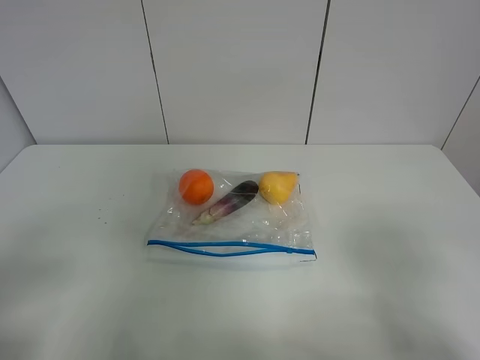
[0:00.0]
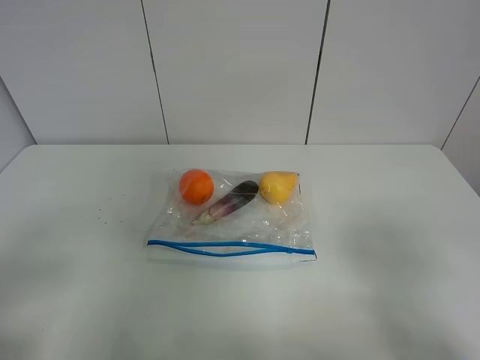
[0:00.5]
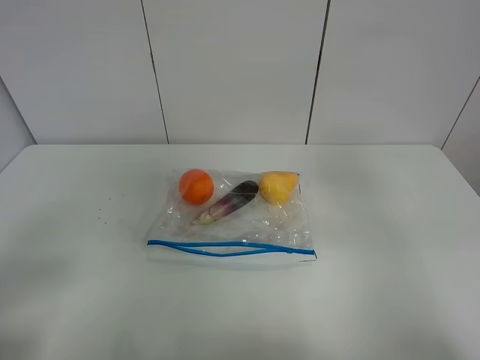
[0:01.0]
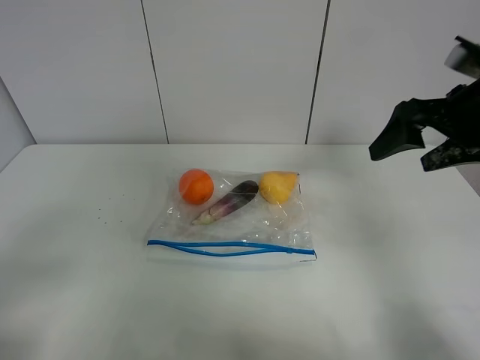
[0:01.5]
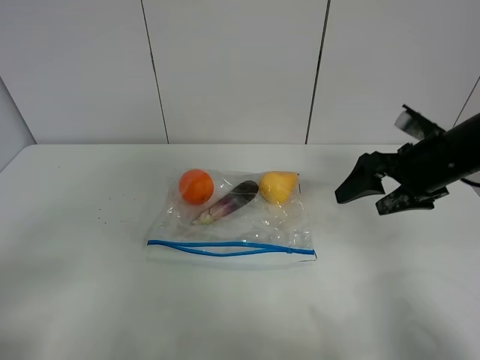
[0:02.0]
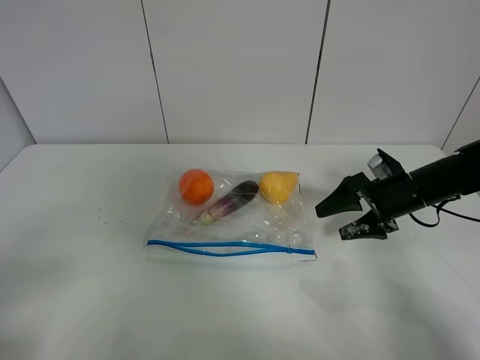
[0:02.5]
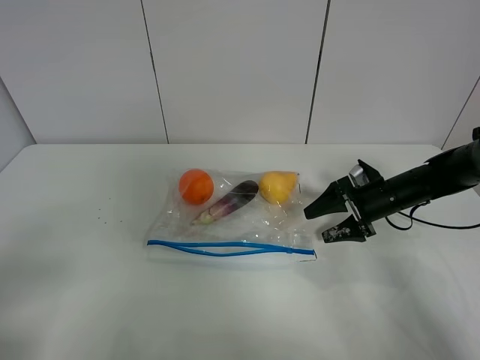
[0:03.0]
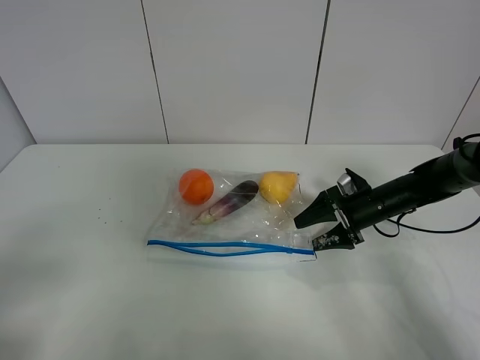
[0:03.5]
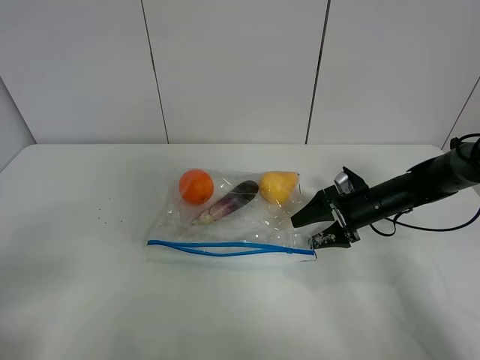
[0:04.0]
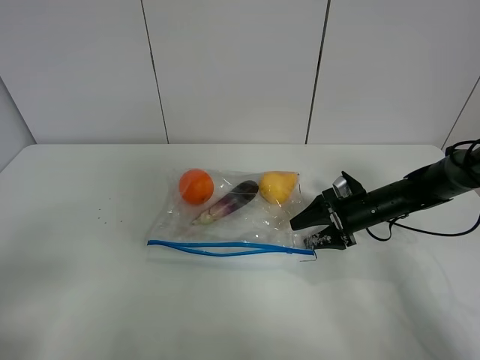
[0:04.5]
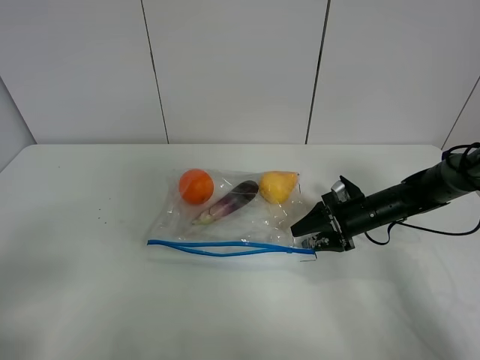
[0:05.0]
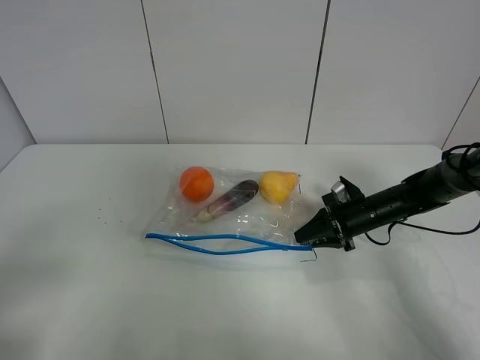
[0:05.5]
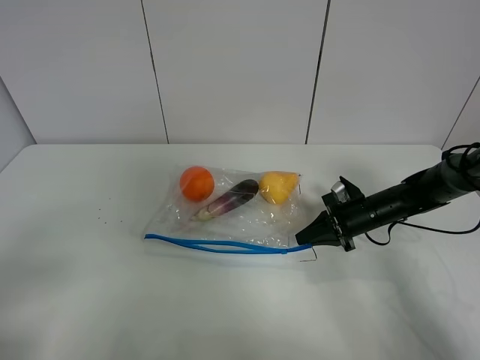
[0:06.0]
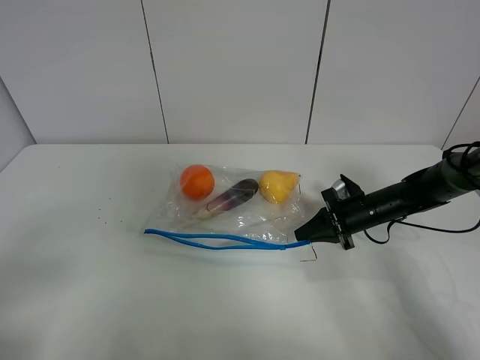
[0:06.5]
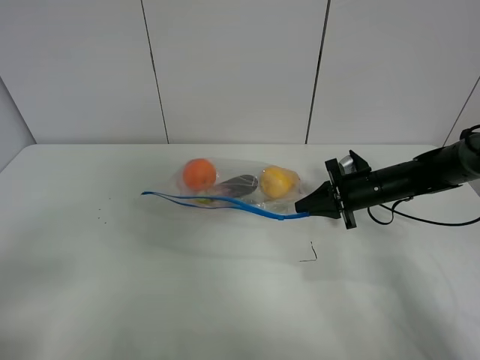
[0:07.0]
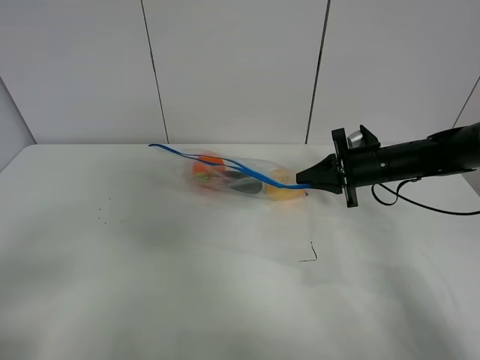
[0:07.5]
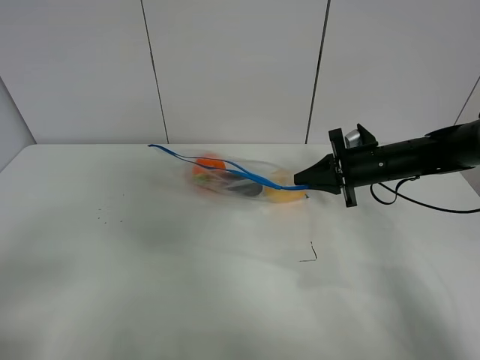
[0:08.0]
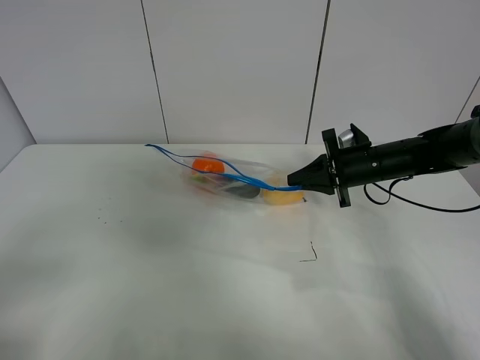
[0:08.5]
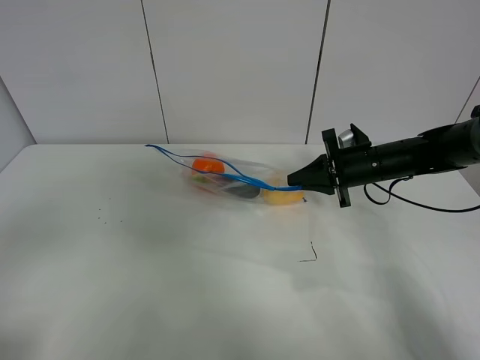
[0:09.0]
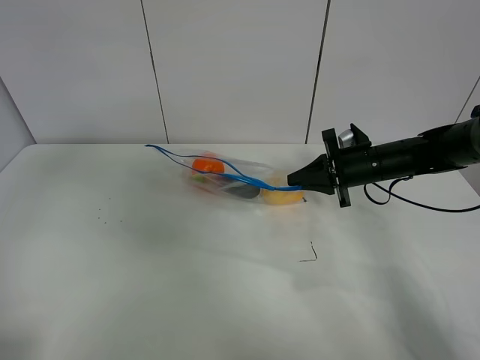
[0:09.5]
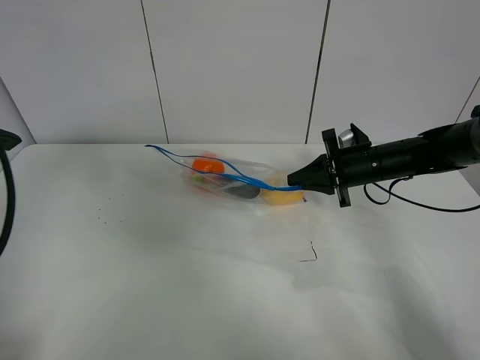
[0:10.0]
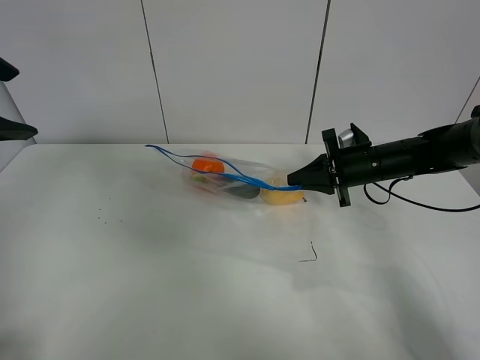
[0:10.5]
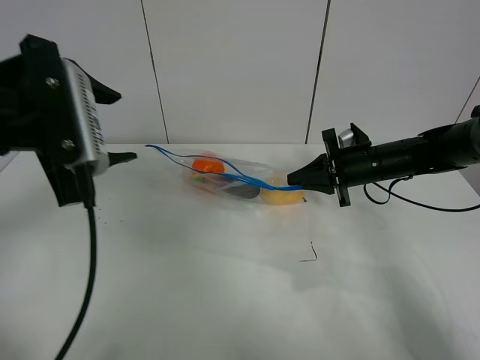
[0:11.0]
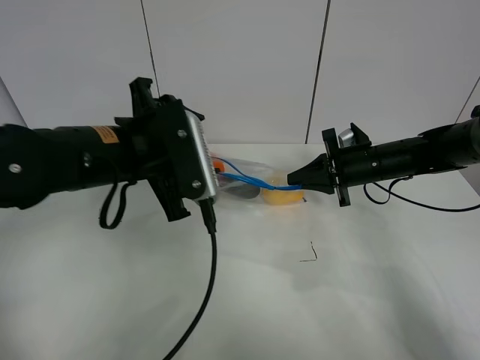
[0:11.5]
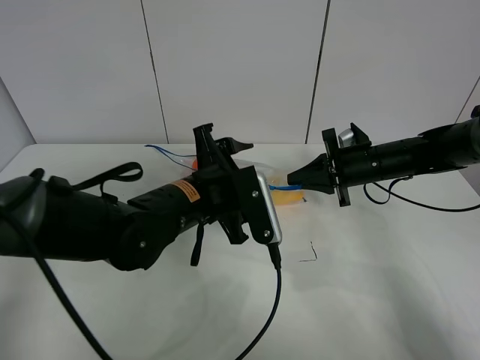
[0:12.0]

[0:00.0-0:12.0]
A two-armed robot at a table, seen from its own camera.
Step, 0:00.0 to 0:05.5: Grasp the fruit bag with right gripper.
Step, 0:06.0 to 0:07.5: Lift the fruit bag with your right gripper.
0:00.0 to 0:02.0: The right gripper goes about 30 cm forward.
0:02.0 to 0:04.0: The right gripper travels downward and forward by approximately 15 cm.
0:04.0 to 0:06.0: The right gripper closes up.
0:06.0 to 0:08.0: The right gripper travels upward by roughly 10 cm.
0:08.0 to 0:10.0: The left gripper heads forward and upward, covering some 25 cm.
0:10.0 to 0:12.0: The left gripper goes about 30 cm to the right and downward.

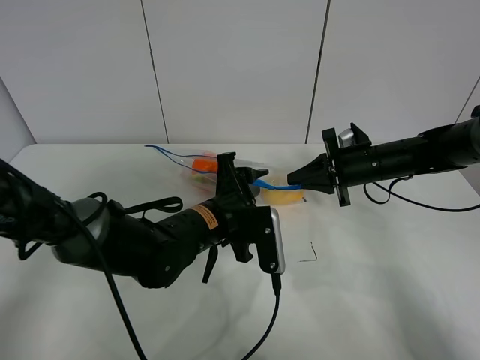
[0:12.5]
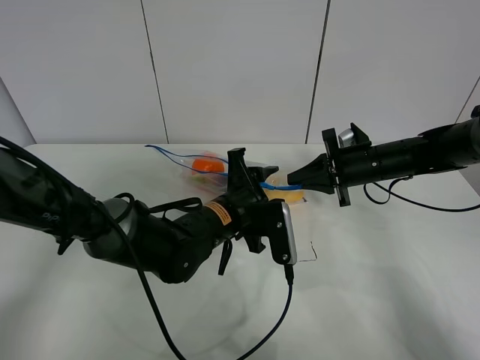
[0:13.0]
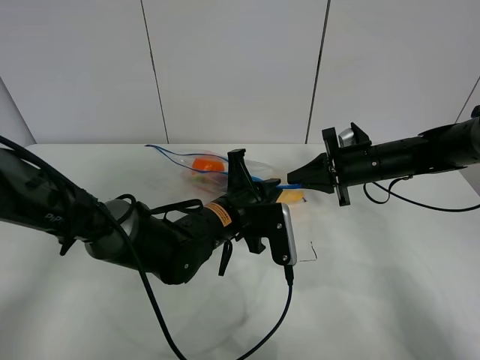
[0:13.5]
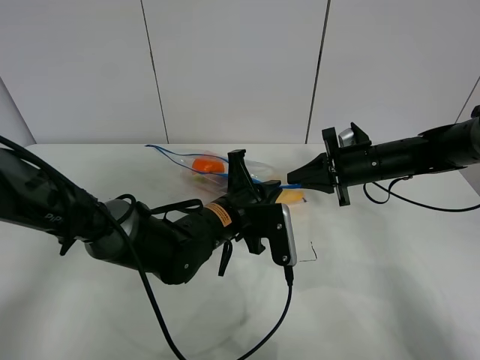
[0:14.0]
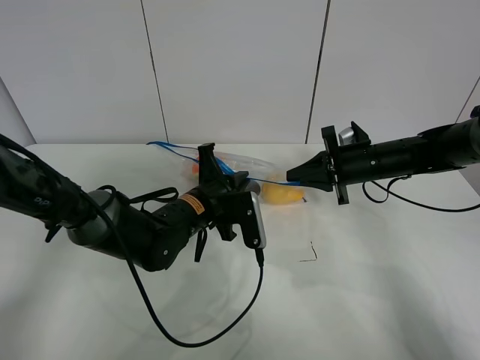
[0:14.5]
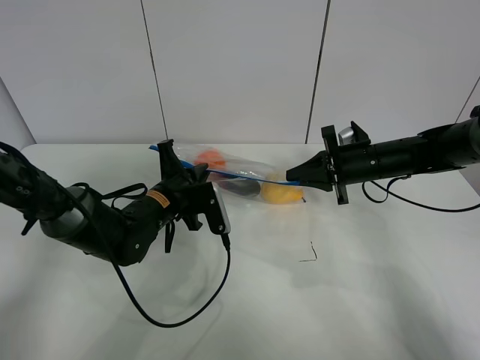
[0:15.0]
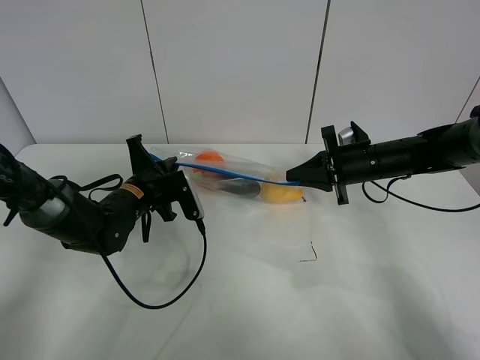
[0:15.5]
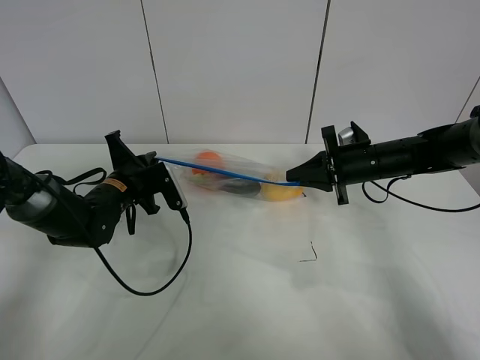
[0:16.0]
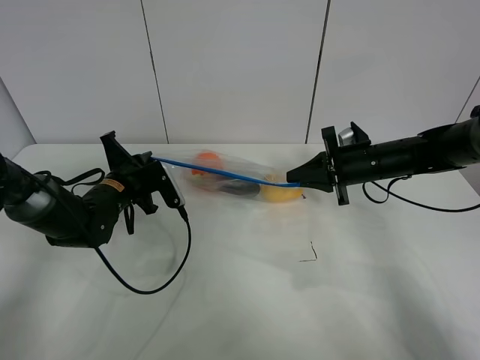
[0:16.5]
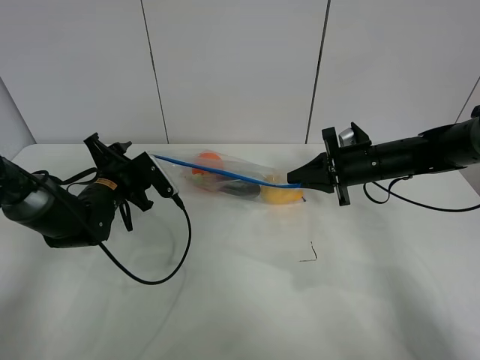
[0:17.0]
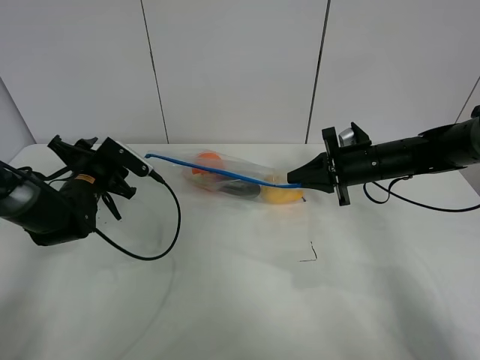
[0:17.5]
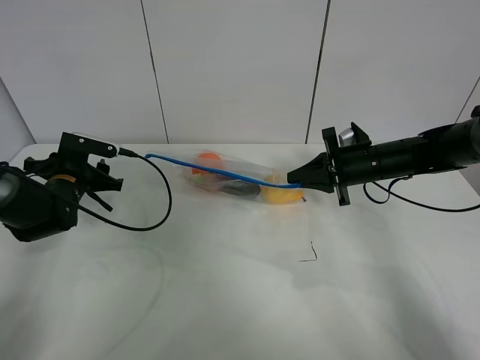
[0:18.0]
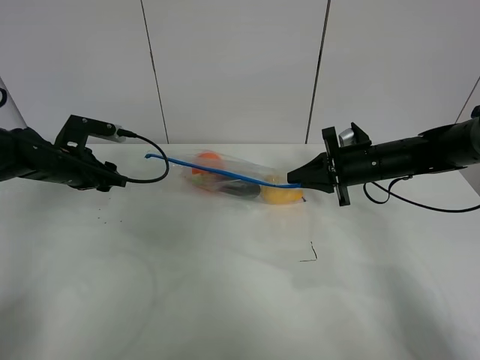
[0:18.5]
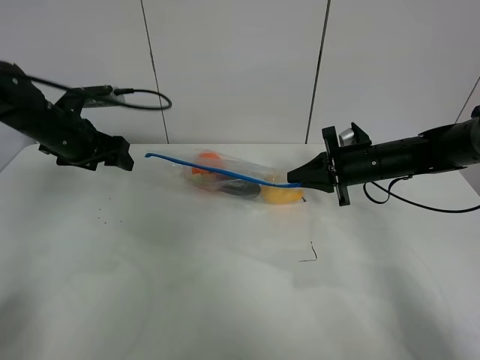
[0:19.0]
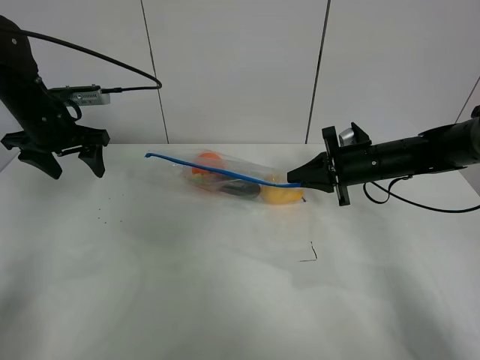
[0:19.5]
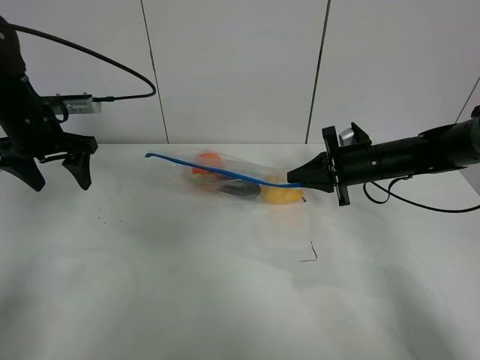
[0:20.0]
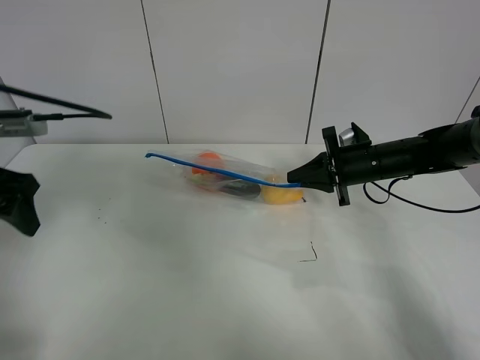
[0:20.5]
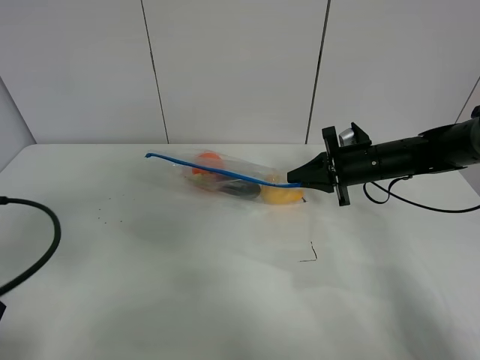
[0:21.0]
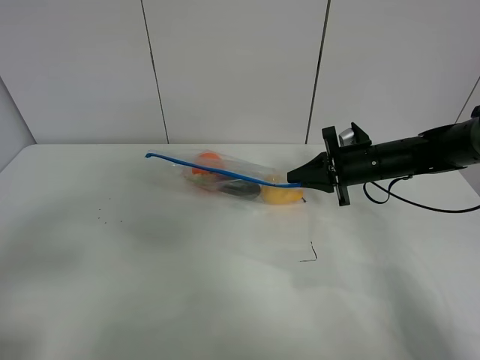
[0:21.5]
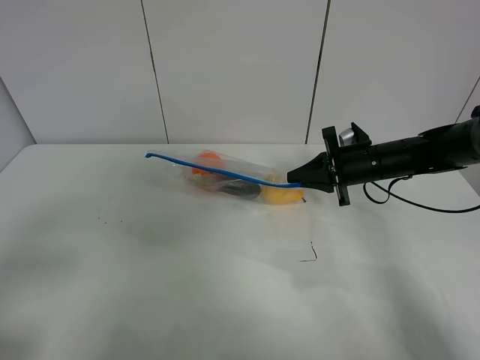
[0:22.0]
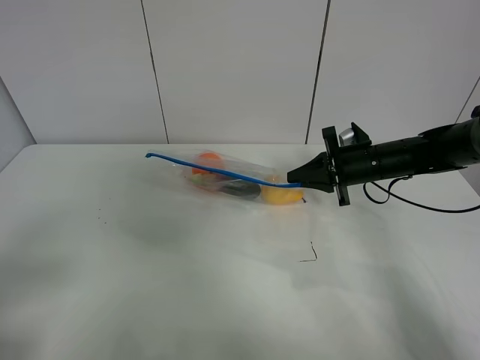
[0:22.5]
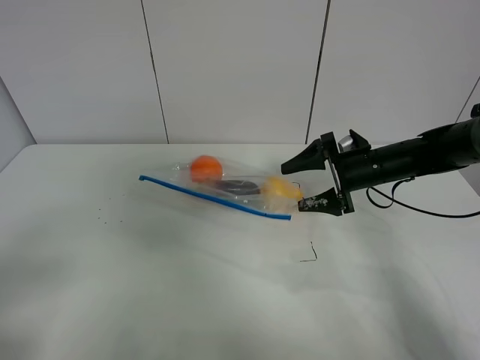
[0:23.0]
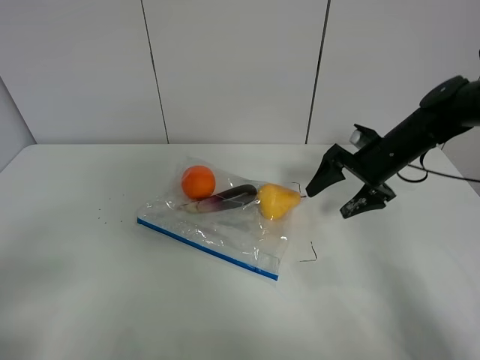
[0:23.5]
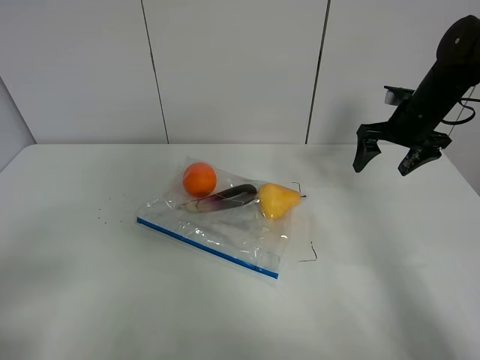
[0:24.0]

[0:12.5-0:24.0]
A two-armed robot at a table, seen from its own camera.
Step, 0:12.5 to 0:16.5: Pull the fruit bag with left gripper.
0:12.5 to 0:14.5: The left gripper changes place by roughly 5 cm, and closes.
0:14.5 to 0:16.5: The left gripper goes about 15 cm to the left.
0:16.5 to 0:18.5: The left gripper goes roughly 10 cm to the left, and opens up.
0:18.5 to 0:20.0: The left gripper heads upward, covering roughly 10 cm.
0:20.0 to 0:22.0: The left gripper shifts about 35 cm backward.
0:22.0 to 0:24.0: The right gripper is displaced upward and to the right by about 10 cm, and opens its fingers.

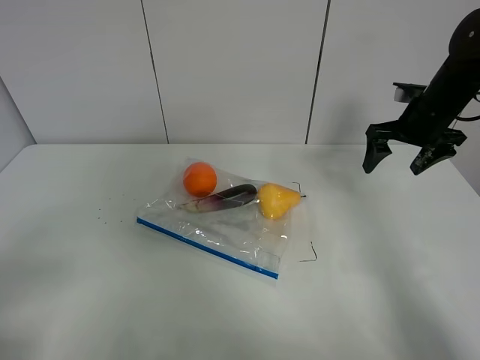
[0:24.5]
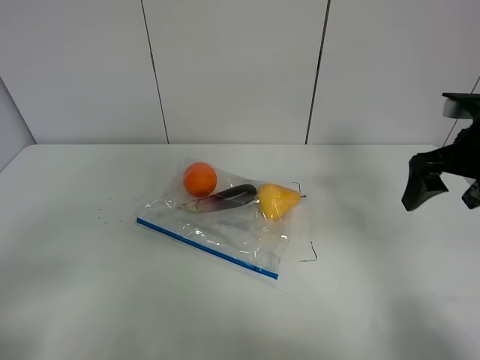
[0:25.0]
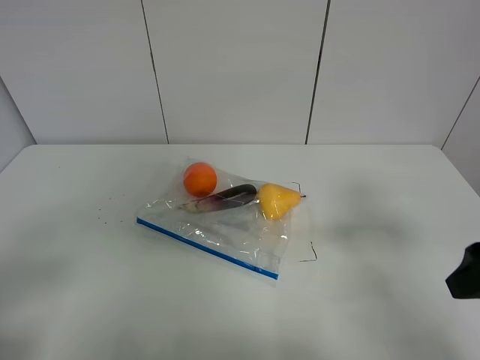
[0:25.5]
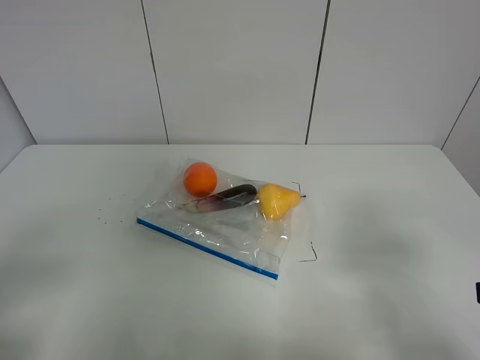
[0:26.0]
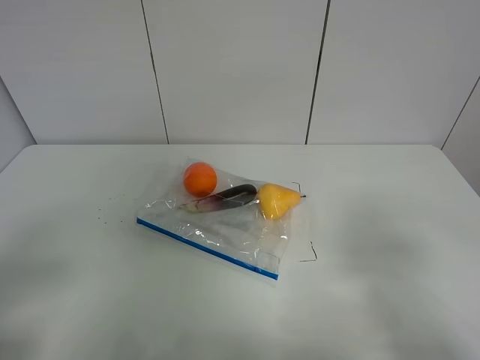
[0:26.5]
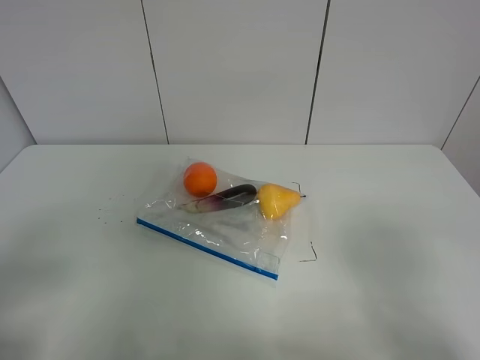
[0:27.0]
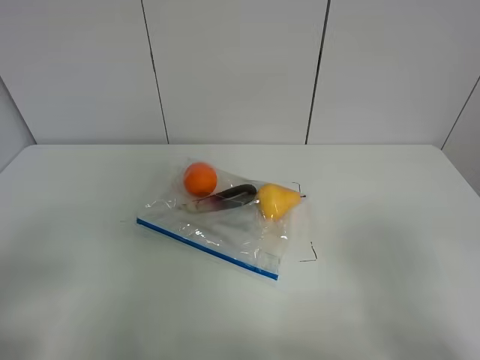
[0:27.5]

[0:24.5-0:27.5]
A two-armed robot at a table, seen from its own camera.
0:24.5 to 0:26.0: The right gripper goes about 35 cm backward.
